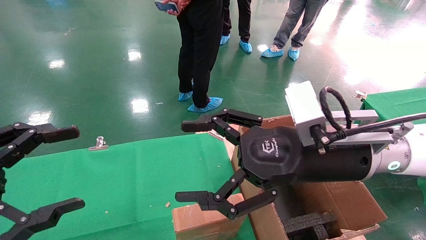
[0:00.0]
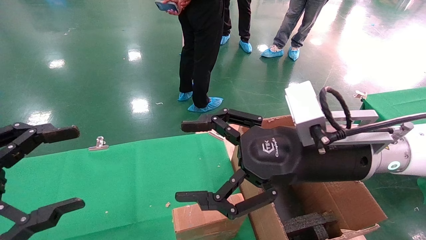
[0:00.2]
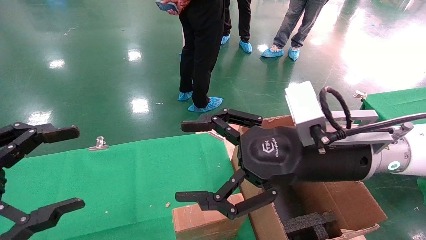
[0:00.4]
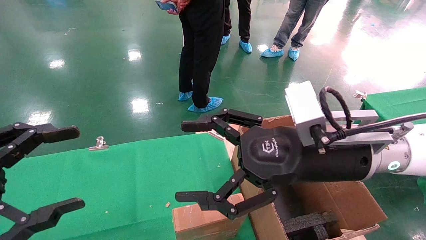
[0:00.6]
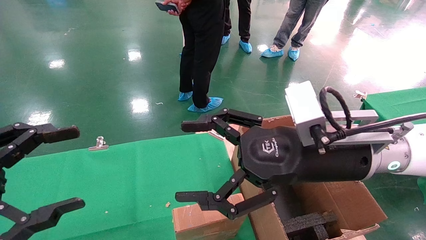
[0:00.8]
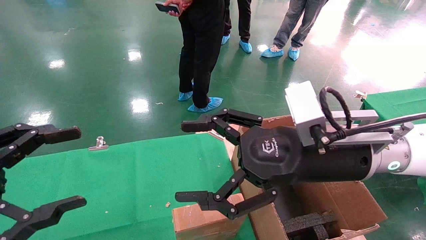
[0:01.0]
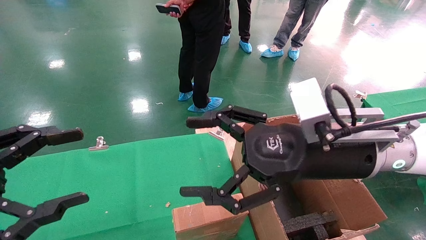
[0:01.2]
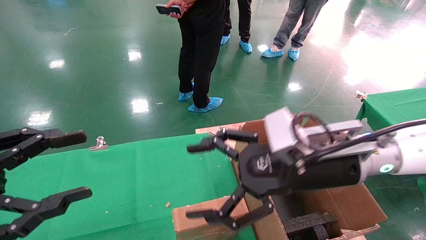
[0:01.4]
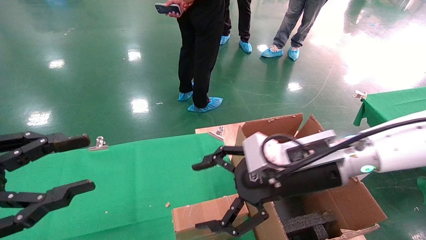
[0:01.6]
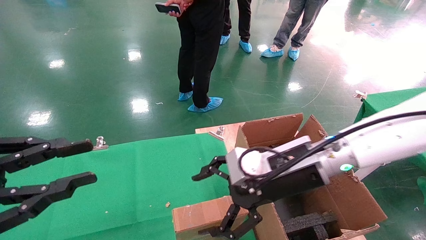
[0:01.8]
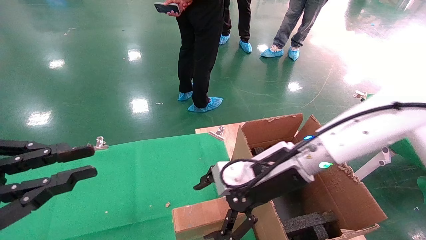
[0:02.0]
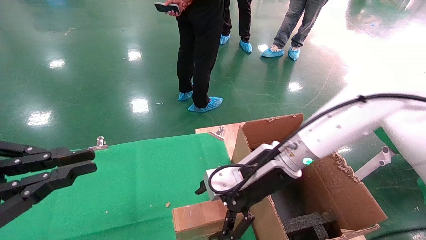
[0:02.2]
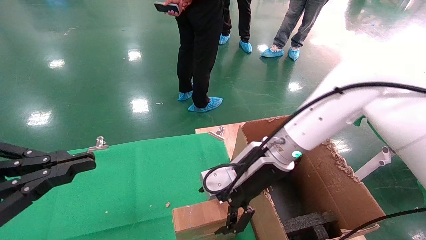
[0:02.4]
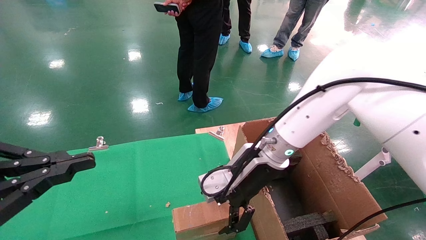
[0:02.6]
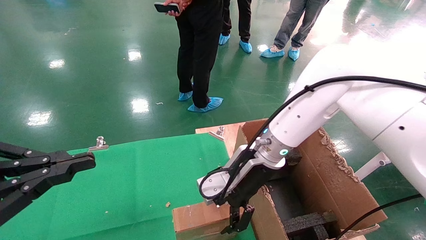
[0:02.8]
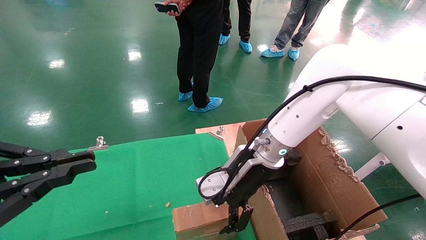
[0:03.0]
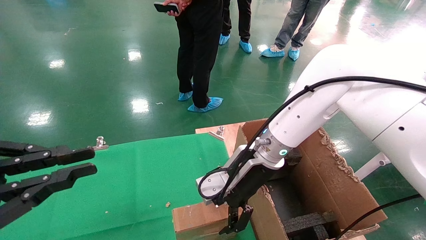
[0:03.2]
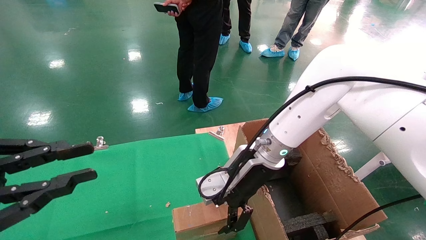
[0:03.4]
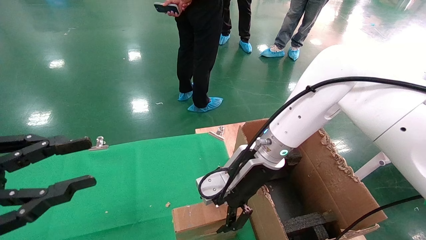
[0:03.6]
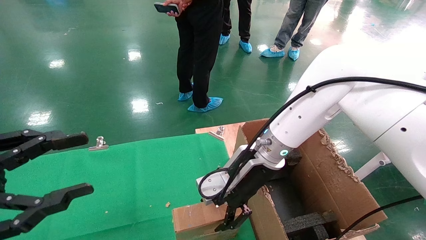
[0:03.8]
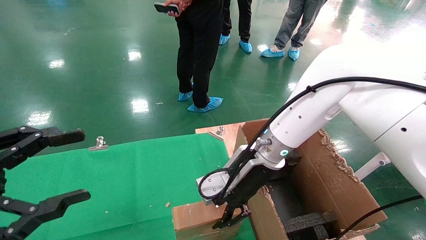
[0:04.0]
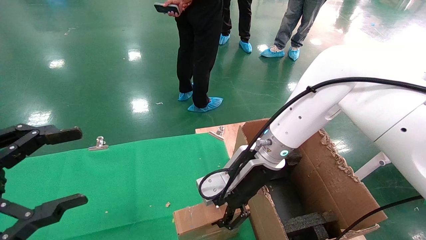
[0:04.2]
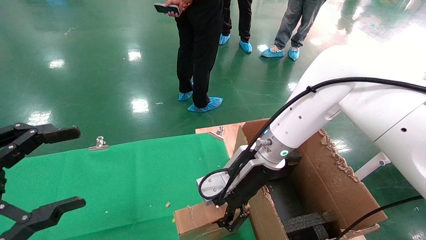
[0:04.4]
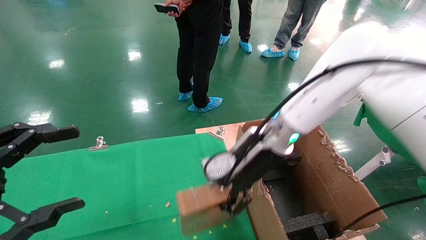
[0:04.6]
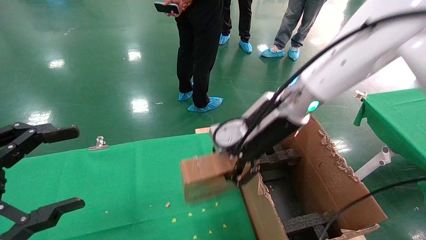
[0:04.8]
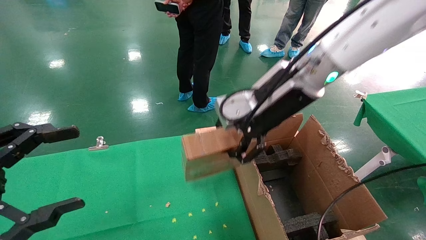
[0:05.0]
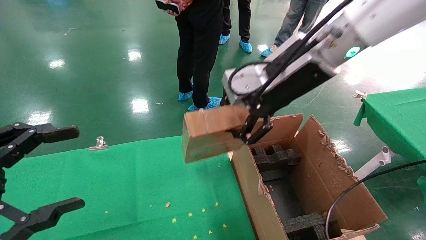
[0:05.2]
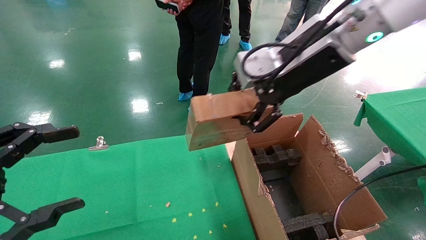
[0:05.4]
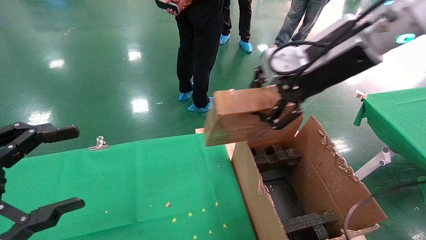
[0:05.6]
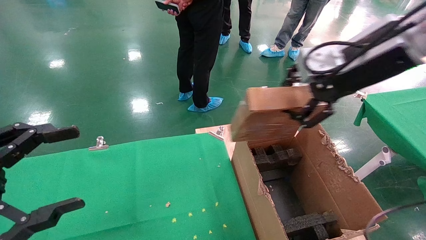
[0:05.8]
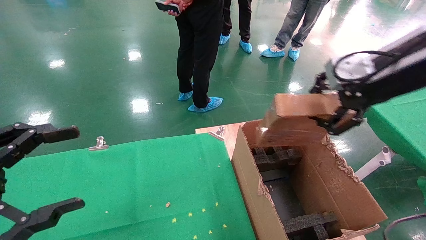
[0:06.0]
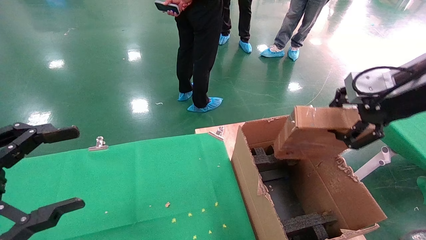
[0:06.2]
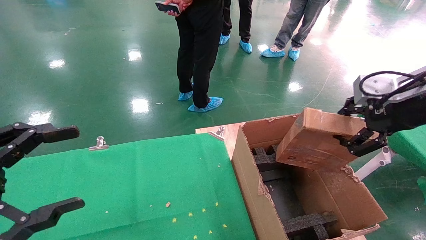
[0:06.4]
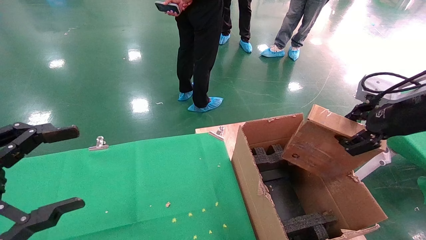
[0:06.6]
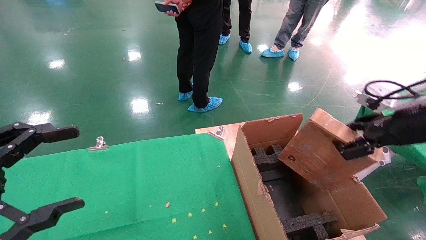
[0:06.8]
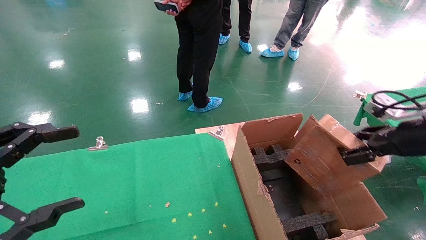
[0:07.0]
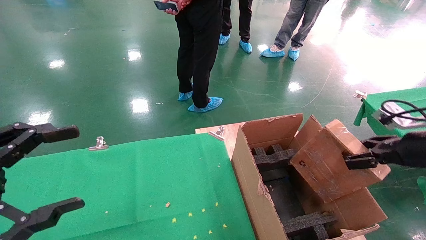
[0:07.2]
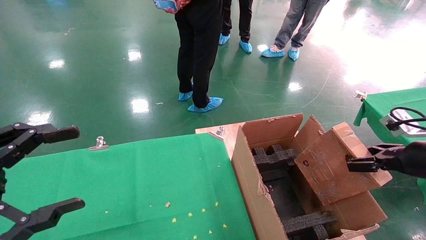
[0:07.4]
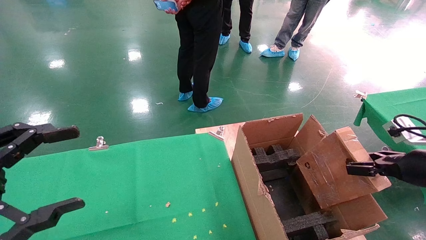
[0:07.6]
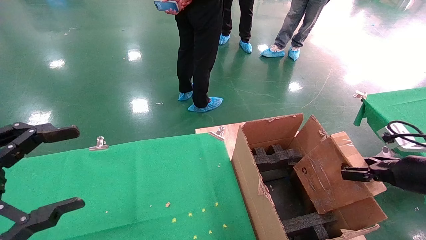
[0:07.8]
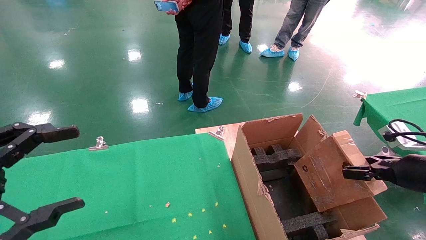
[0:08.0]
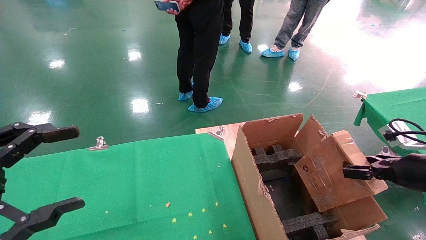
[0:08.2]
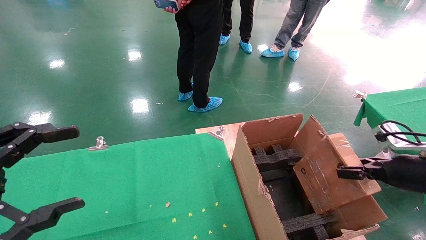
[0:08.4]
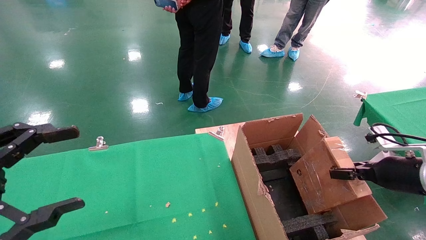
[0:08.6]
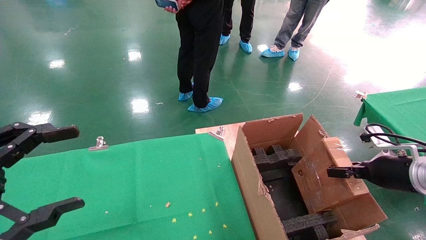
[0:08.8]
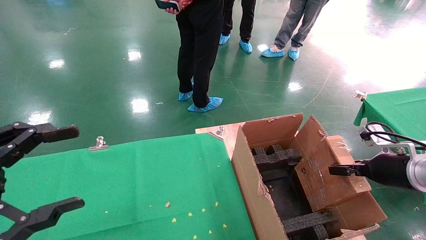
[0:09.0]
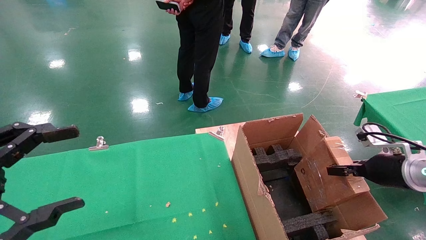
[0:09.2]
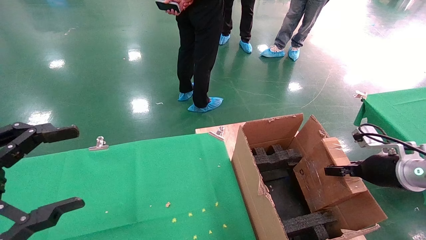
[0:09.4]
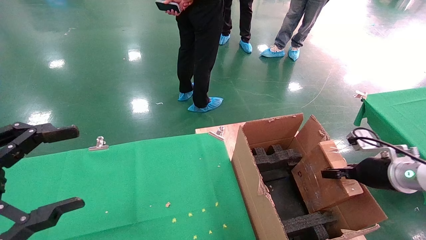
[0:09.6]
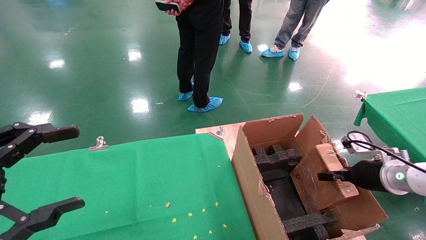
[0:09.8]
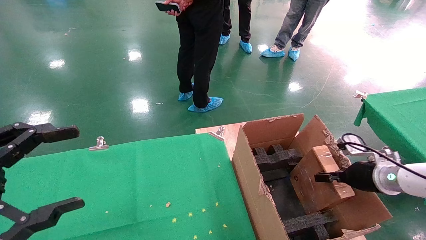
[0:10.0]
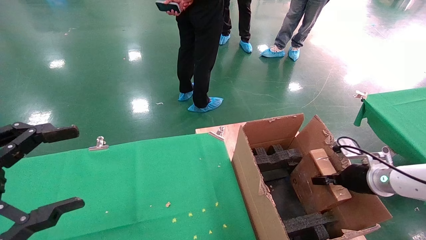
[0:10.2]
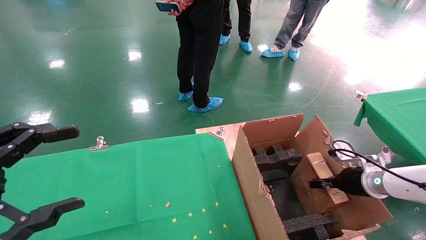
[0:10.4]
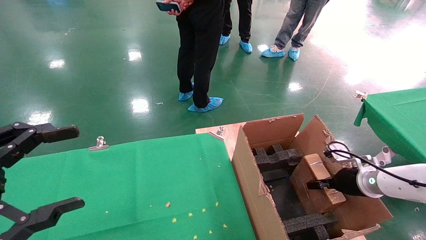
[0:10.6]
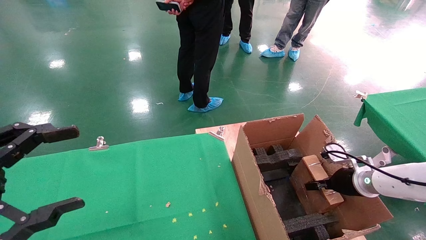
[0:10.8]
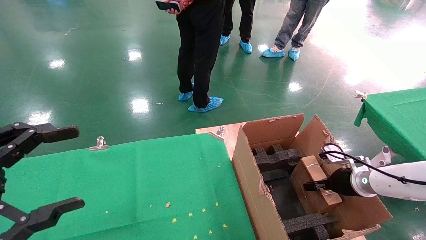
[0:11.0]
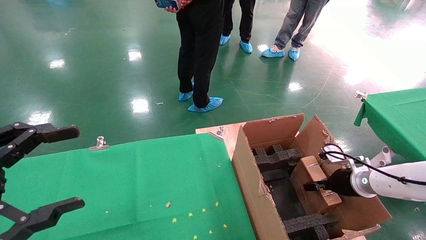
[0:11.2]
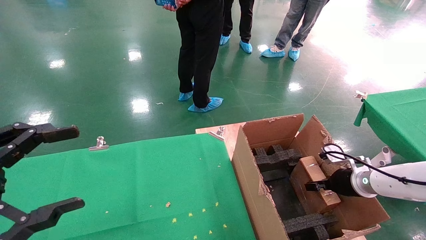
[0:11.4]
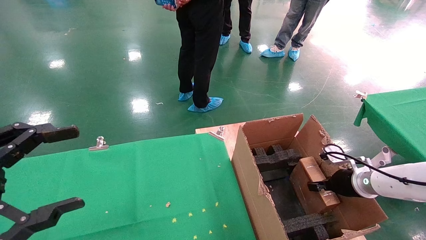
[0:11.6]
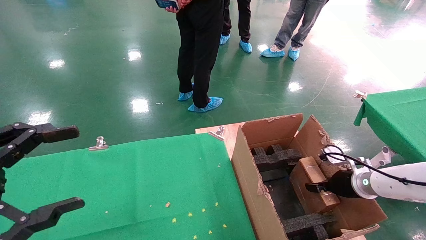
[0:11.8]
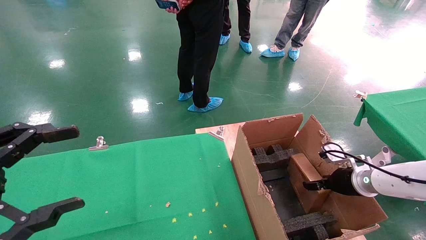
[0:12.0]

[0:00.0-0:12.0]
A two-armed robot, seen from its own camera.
Task of the whole recording: using a robotic arm to pick up a cardboard box and palace it the carton.
Step, 0:01.4 to 0:04.2: Pick up the mouse and the power cord paper box.
0:00.0 to 0:01.6: The left gripper closes its fingers.
0:01.6 to 0:03.0: The right gripper travels forward and to the left by some 10 cm. Meanwhile the left gripper closes up.
0:03.0 to 0:04.4: The left gripper opens up. The right gripper closes up.
0:04.4 to 0:06.0: The right gripper is displaced to the right, upward and backward by roughly 30 cm.
0:06.0 to 0:07.6: The right gripper goes roughly 25 cm downward and to the right.
0:07.6 to 0:09.0: The right gripper shifts some 5 cm forward.
0:09.0 to 0:10.4: The right gripper moves downward and forward, roughly 10 cm.
0:10.4 to 0:12.0: The right gripper opens.

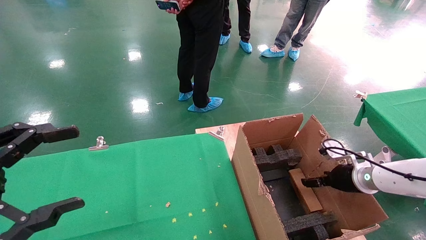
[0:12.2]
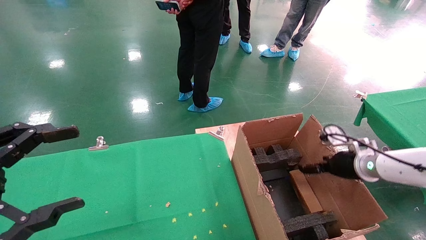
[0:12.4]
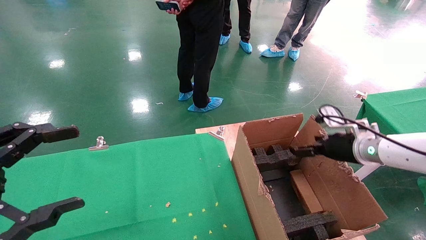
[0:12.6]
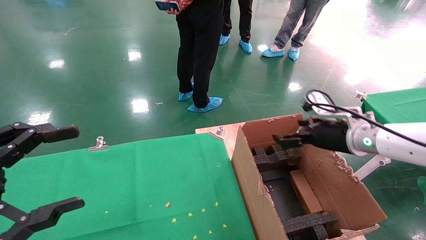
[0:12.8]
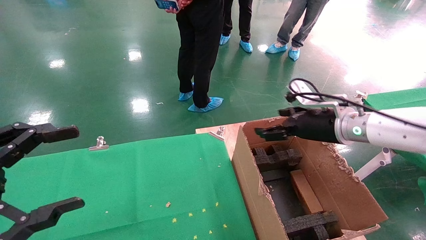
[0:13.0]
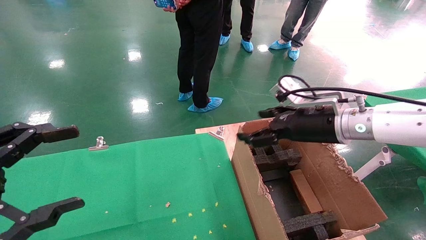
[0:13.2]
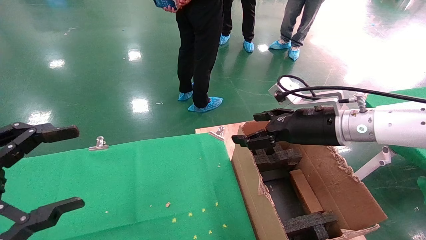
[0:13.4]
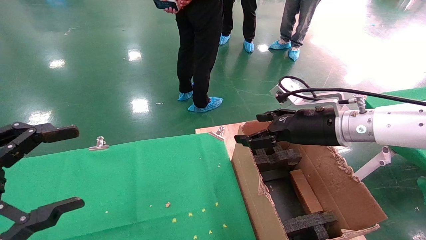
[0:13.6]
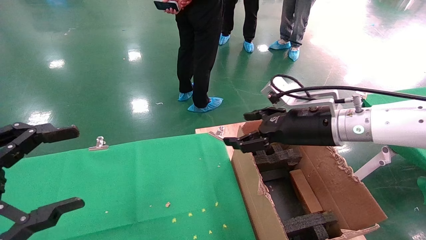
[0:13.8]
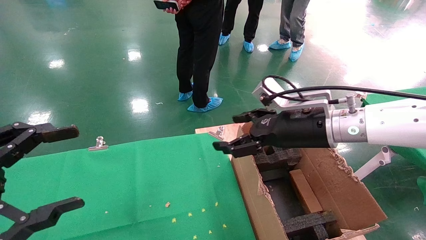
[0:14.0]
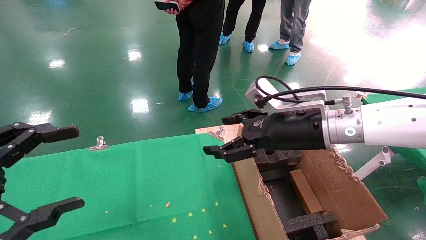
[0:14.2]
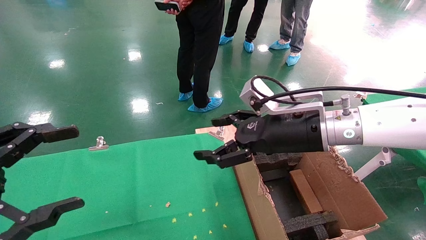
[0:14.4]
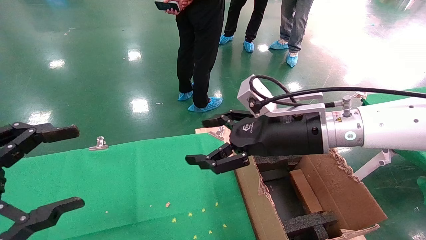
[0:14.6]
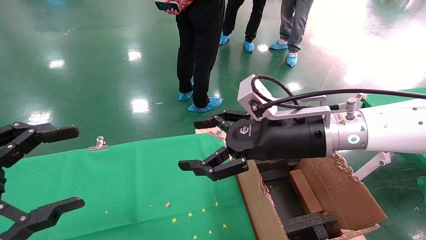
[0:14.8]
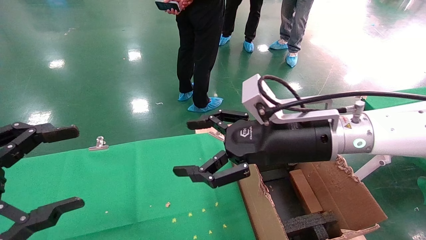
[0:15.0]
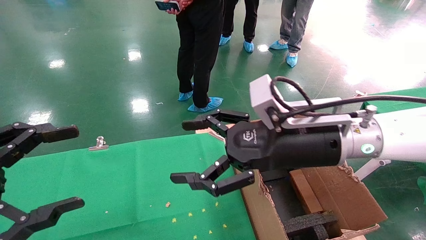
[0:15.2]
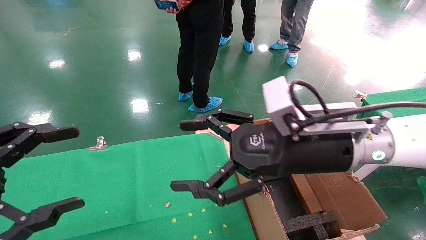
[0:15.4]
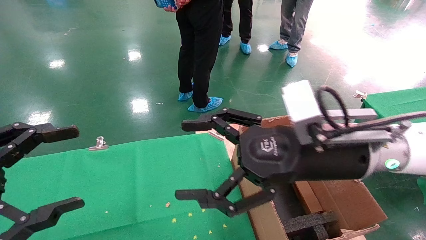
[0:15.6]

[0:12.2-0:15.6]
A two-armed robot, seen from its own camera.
Task of the whole recording: using a robotic arm to pick up a cardboard box and palace it the carton.
0:12.2 to 0:13.8: The right gripper heads to the left and upward, covering some 20 cm.
0:13.8 to 0:15.6: The right gripper travels backward and to the left by about 10 cm.

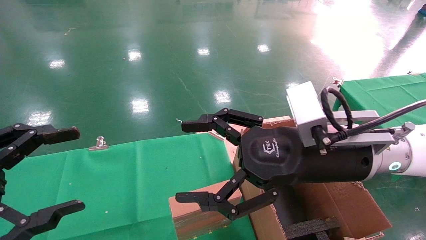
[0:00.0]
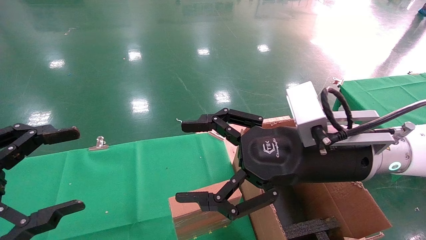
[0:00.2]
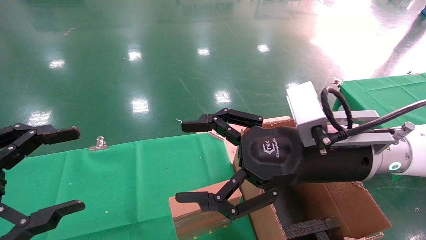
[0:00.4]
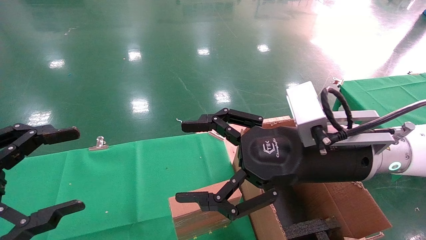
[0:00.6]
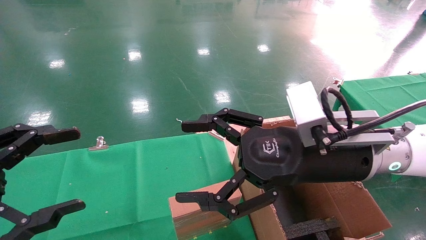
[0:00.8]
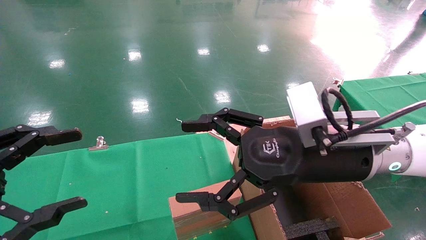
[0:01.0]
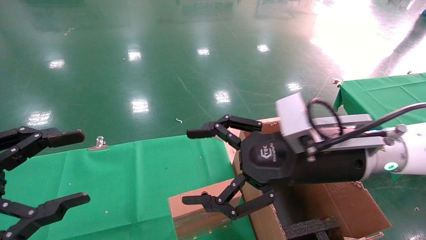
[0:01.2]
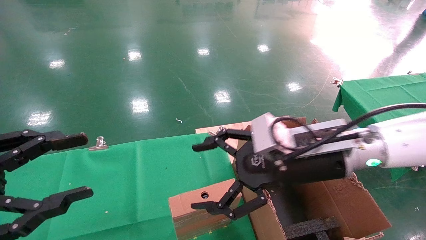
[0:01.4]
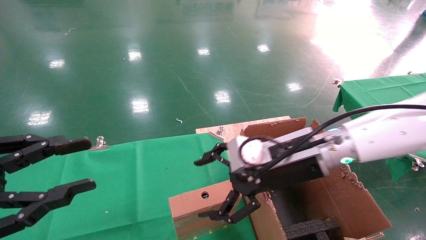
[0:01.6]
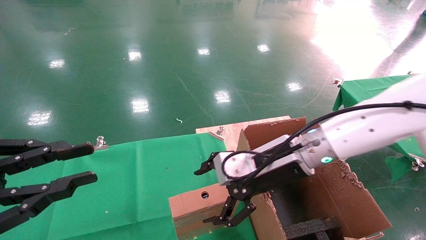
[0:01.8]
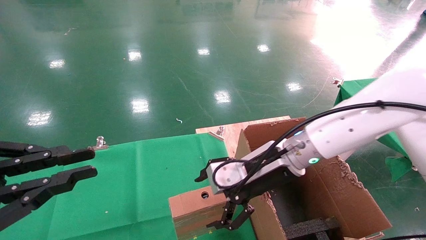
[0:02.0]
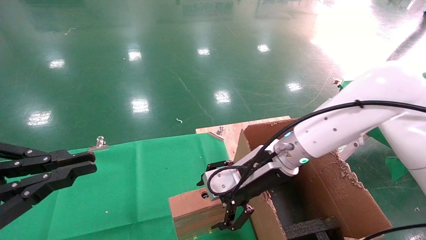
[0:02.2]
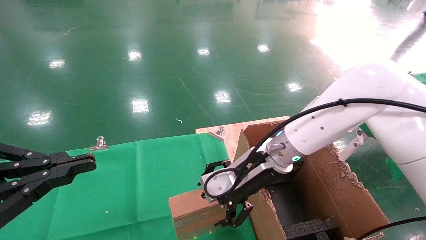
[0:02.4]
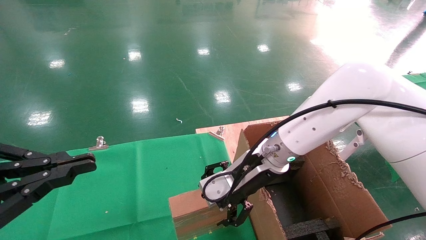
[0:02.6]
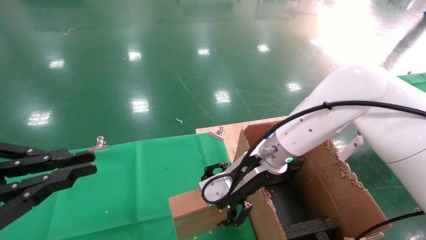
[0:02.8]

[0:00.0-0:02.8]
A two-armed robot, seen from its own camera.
Task of the whole recording: using a robotic arm to pick up a cardboard box and palace it the carton.
0:01.4 to 0:02.8: The left gripper closes its fingers. The right gripper moves forward and to the left, roughly 10 cm.
